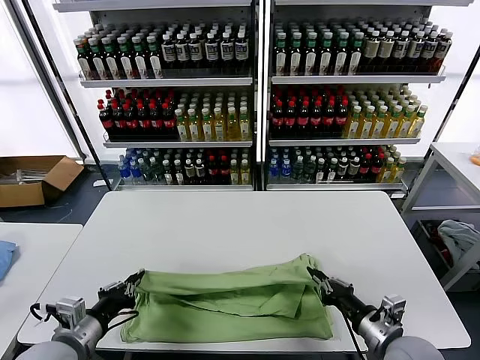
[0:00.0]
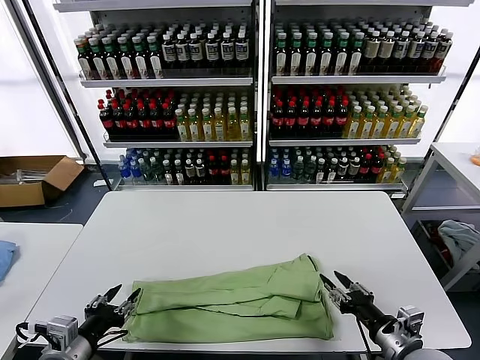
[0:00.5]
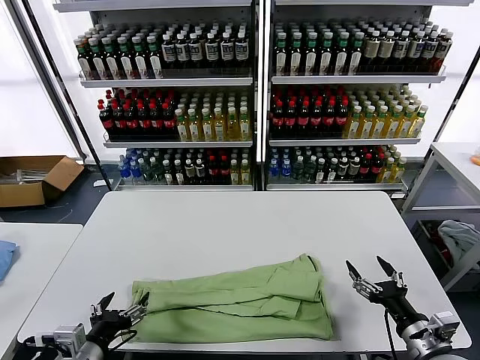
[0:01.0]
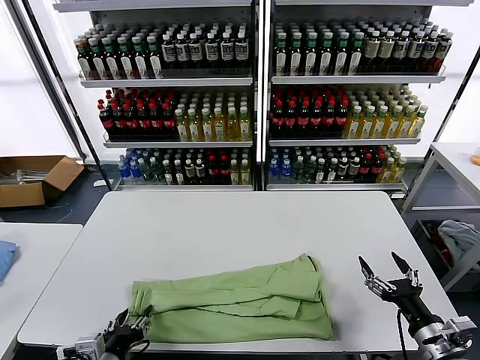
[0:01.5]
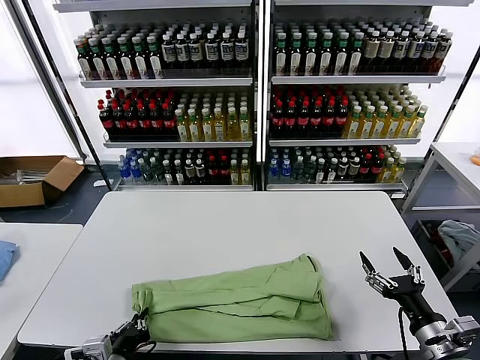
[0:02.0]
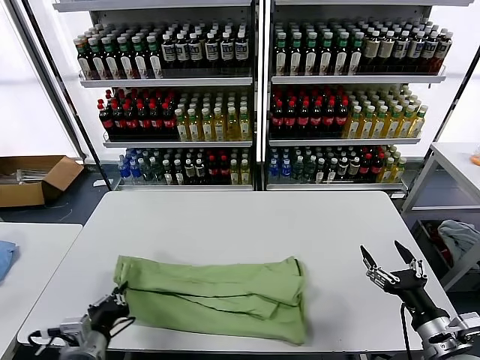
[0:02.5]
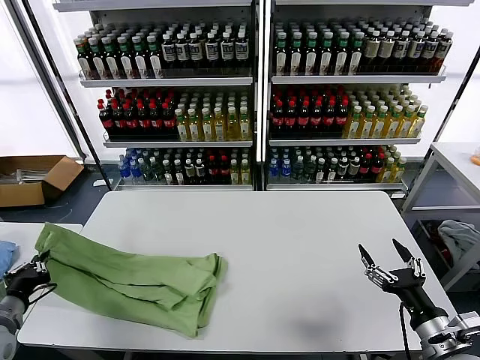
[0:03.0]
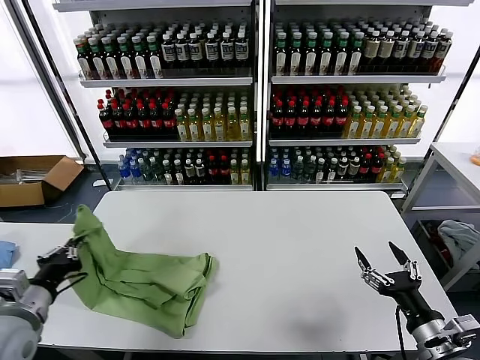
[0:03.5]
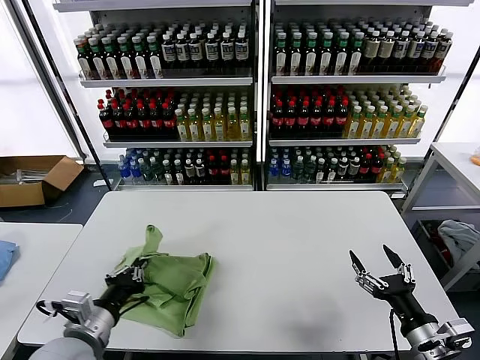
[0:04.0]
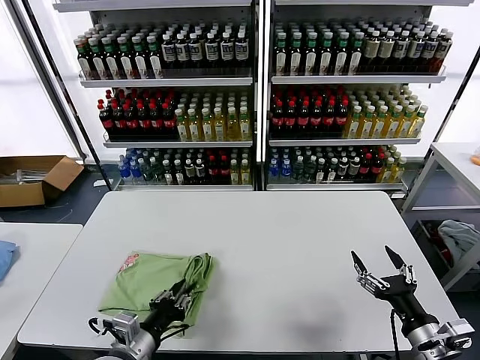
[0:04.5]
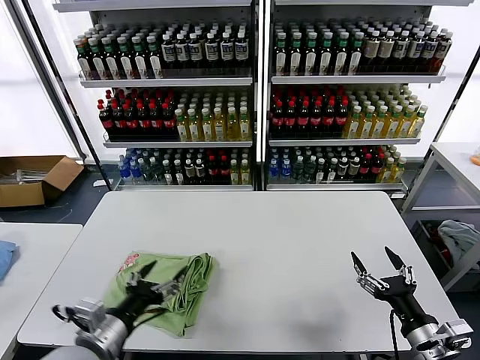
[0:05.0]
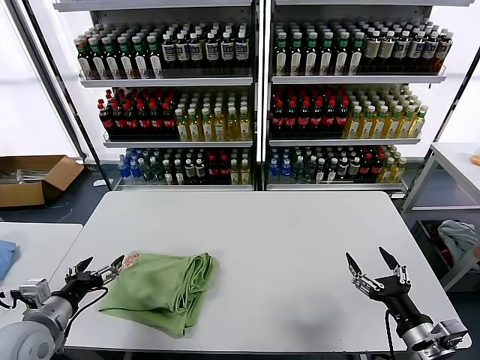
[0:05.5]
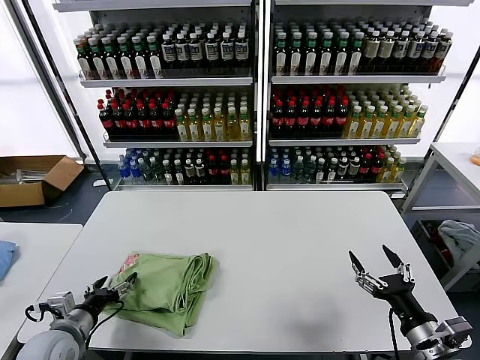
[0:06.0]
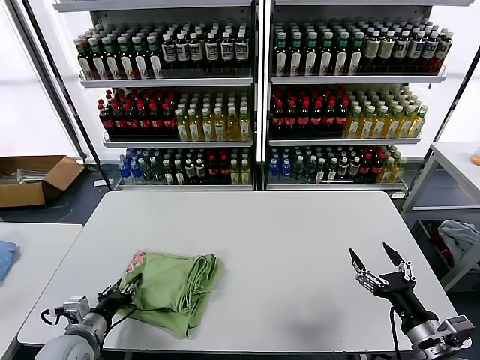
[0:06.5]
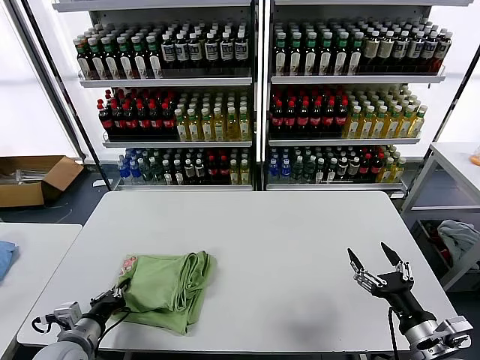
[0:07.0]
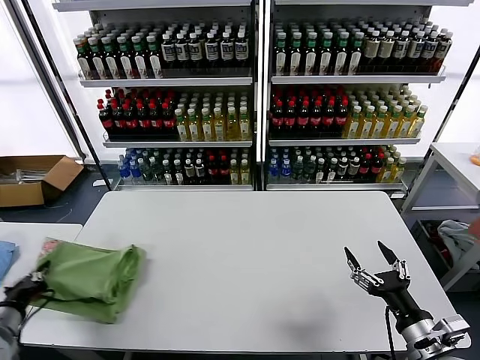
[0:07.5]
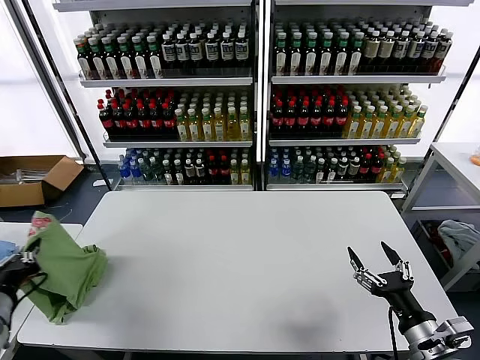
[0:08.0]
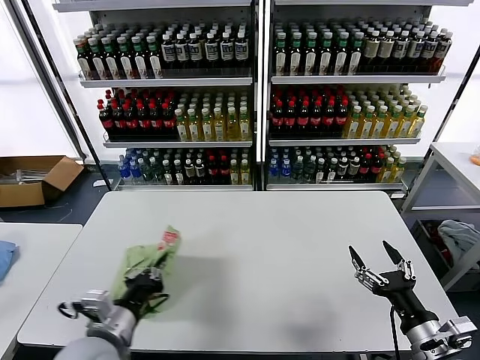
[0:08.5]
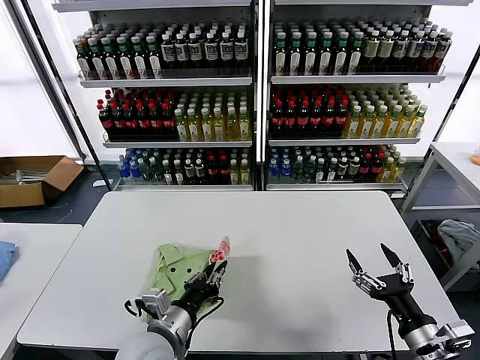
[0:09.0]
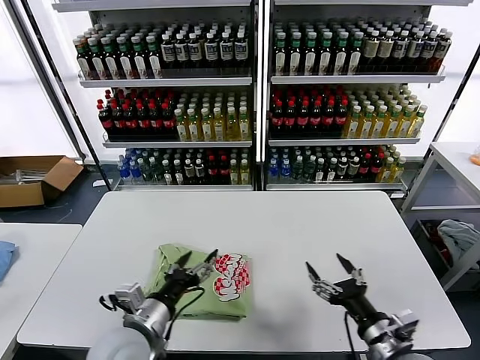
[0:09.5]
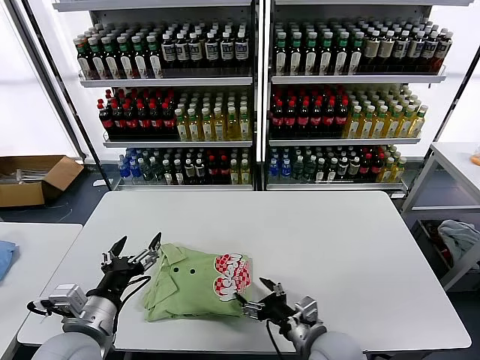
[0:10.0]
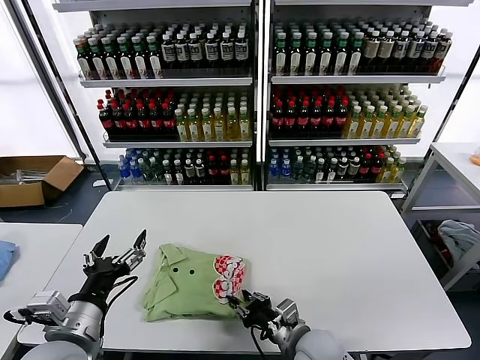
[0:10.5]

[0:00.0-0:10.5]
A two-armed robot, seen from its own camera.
Task of the whole recording: fold and organize the clothes.
Step, 0:00.5 to 0:02.0: use the left gripper to clamp the left edge of the fabric.
Step, 0:02.5 to 0:04.5: use the left gripper to drag the left edge of the fabric to the left and folds it over the right edge.
Step, 0:05.0 to 0:09.0: Flip the folded clothes over with left gripper.
0:00.0 to 0:02.0: The left gripper travels to the right and downward by about 10 cm, and opens, then closes again, while the right gripper is displaced to the right by about 5 cm, and opens its fingers.
0:02.0 to 0:04.0: The left gripper travels upward and forward by some 10 cm, and reaches some 20 cm to the left, then returns.
0:04.0 to 0:06.5: The left gripper heads downward and to the left, covering approximately 10 cm, and opens up.
0:06.5 to 0:08.5: The left gripper moves upward and to the right, approximately 15 cm, and closes.
0:08.5 to 0:10.5: The right gripper is displaced to the left, downward and forward by about 25 cm, and closes up, while the left gripper moves about 10 cm to the right and comes back, and opens its fingers.

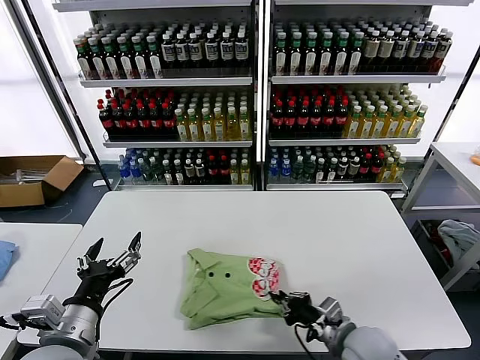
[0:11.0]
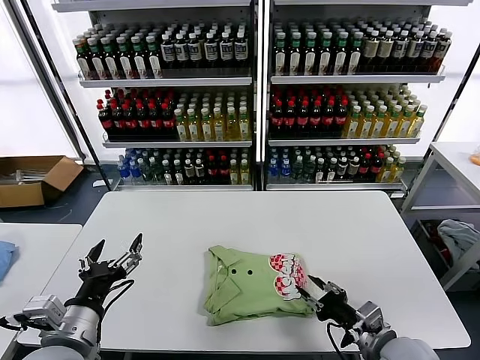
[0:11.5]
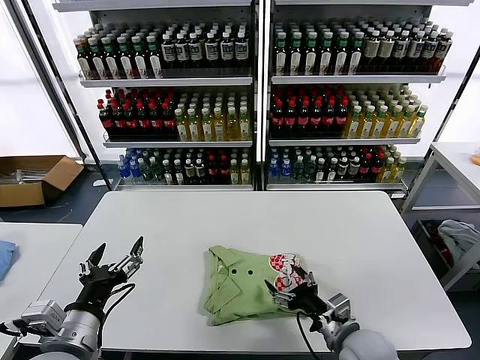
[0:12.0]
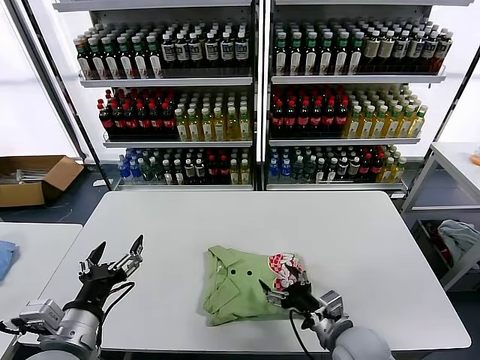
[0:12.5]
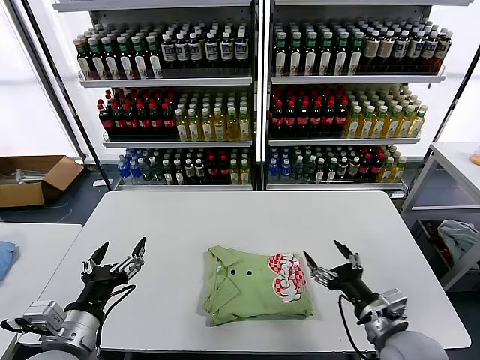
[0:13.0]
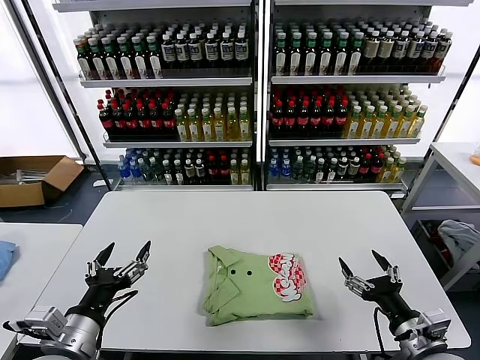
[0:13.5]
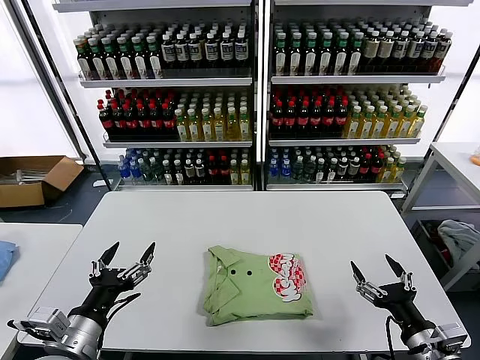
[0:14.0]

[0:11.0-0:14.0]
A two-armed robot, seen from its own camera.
Task of the whole recording: fold and organize the clothes.
0:11.0 to 0:12.5: The right gripper opens its fingers.
0:12.5 to 0:14.0: The right gripper is displaced to the right and backward by approximately 15 cm.
